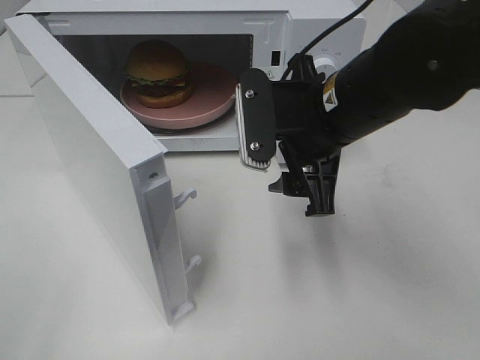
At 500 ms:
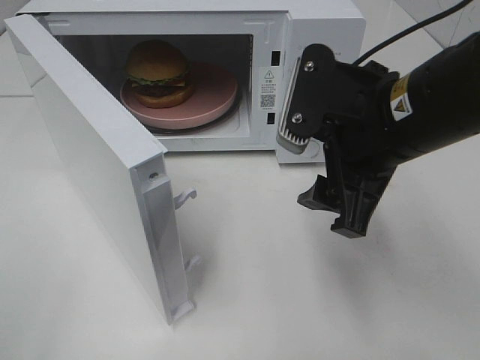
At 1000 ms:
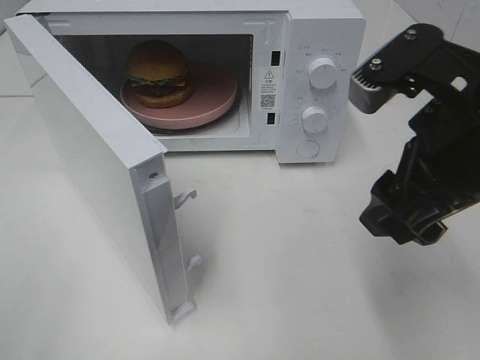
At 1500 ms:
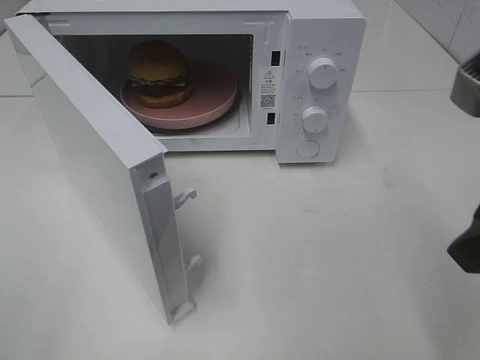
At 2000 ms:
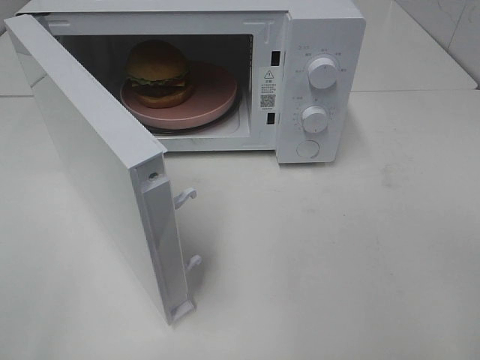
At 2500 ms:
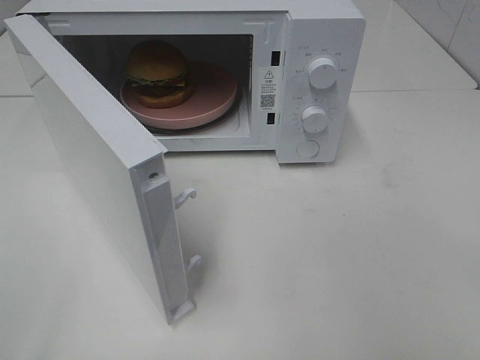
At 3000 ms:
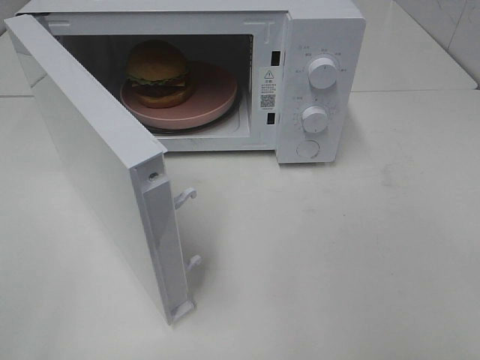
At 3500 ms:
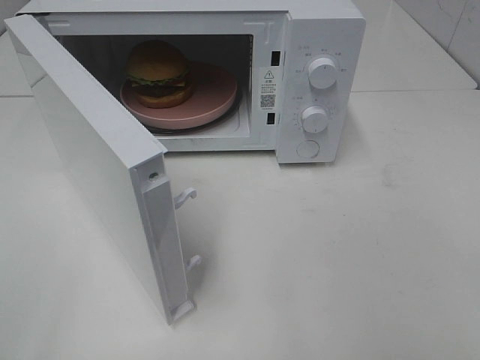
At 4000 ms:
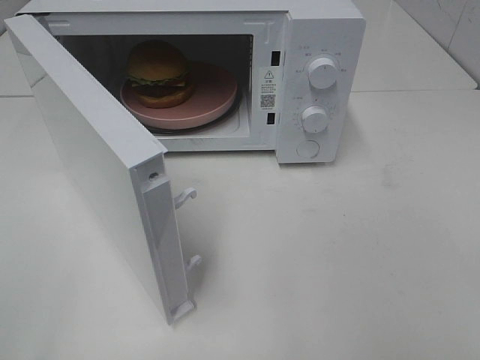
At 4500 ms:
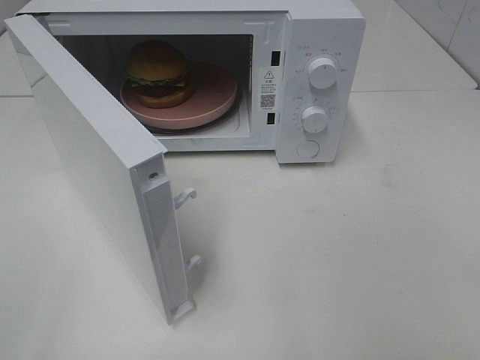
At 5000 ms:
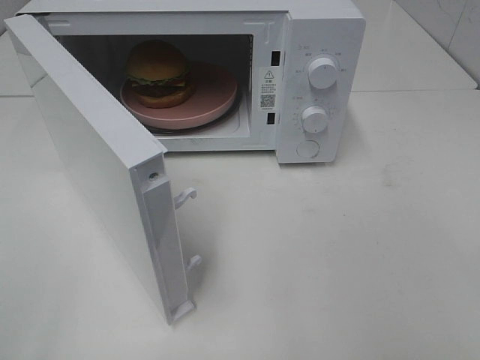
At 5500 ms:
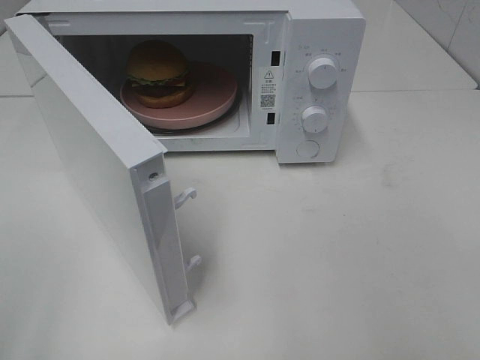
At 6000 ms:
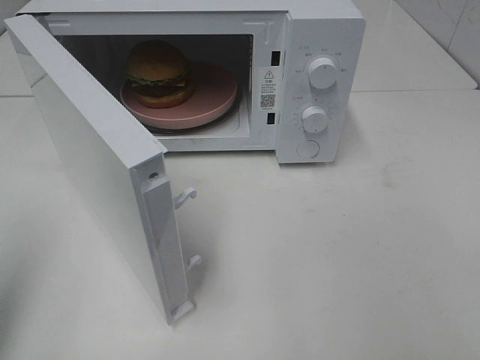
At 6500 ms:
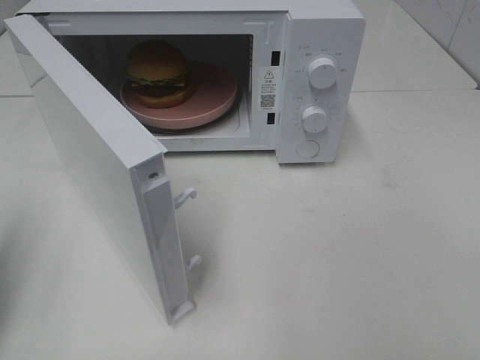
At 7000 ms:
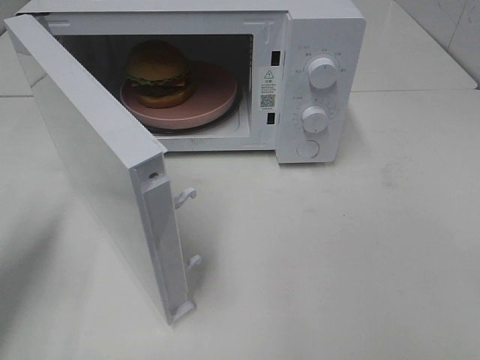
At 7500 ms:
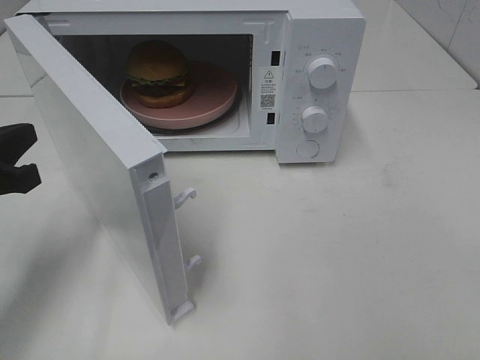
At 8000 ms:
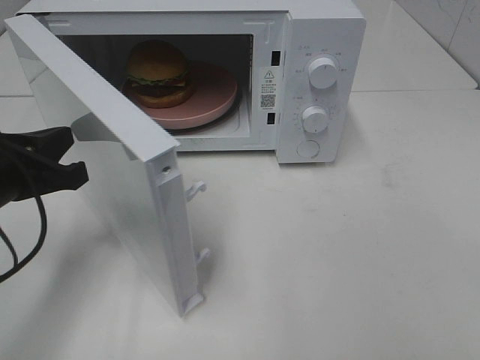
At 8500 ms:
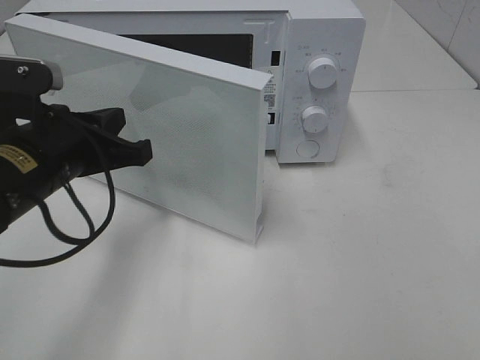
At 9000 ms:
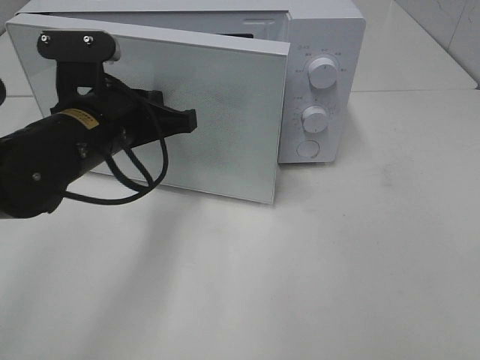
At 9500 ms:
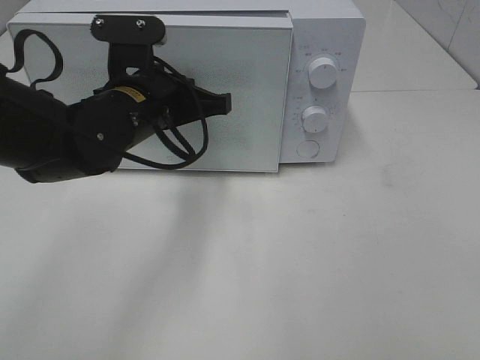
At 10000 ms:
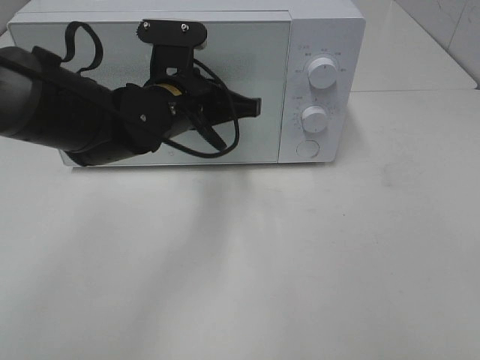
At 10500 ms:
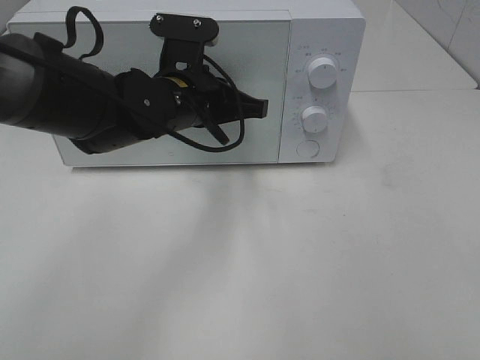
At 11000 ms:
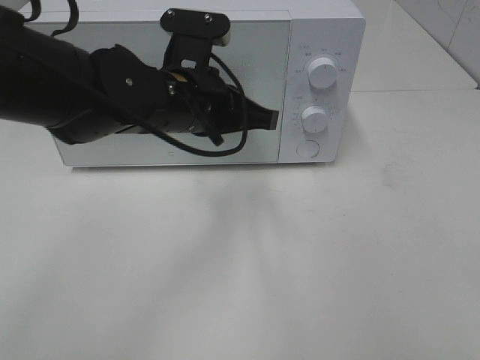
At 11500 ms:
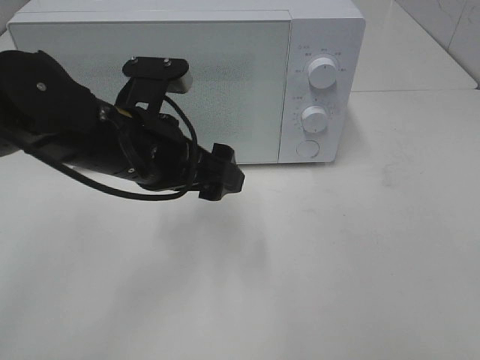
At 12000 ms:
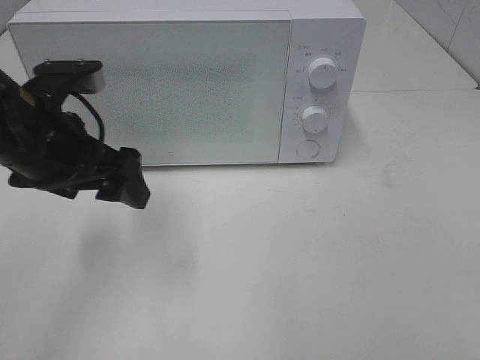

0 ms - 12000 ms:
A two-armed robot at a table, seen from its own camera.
Task of the whole recording: Heat the burger.
Step, 0 ms - 10500 ms: Left hand: close the microwave door.
0 ms - 2000 ms: The right gripper moves backward and to the right, roughly 25 cm.
4000 ms - 6000 ms: The left gripper shifts roughly 10 cm forward, and closes up.
6000 ms - 8000 ms: The left gripper shifts about 20 cm downward, forward and to the right.
8000 ms - 10000 ms: The left gripper moves to the right and forward, approximately 20 cm.
10000 ms - 12000 ms: The left gripper goes roughly 15 cm to the left and backward, and opens.

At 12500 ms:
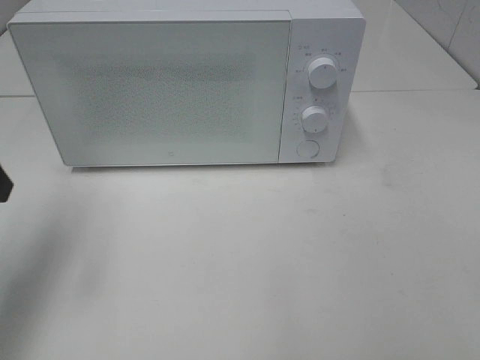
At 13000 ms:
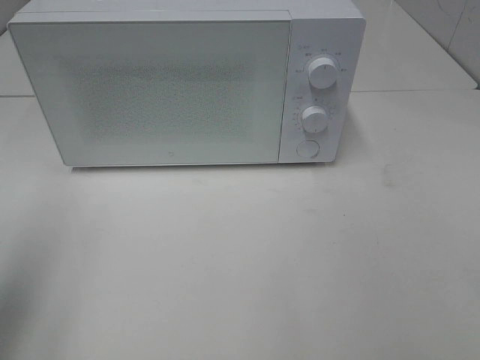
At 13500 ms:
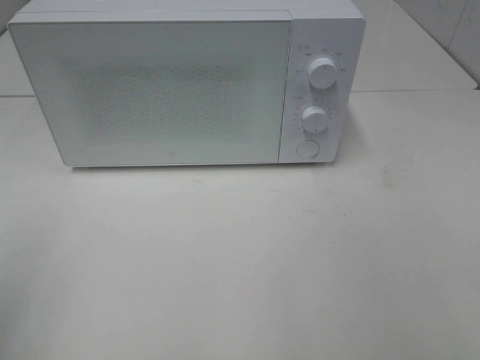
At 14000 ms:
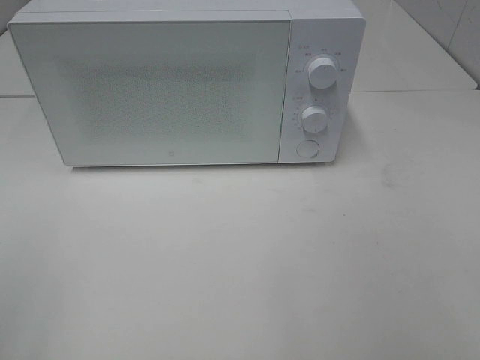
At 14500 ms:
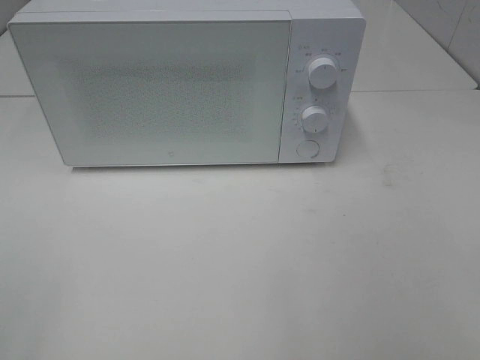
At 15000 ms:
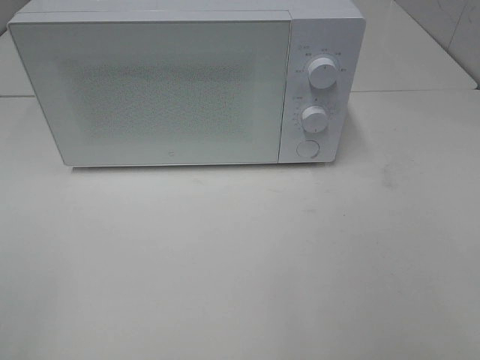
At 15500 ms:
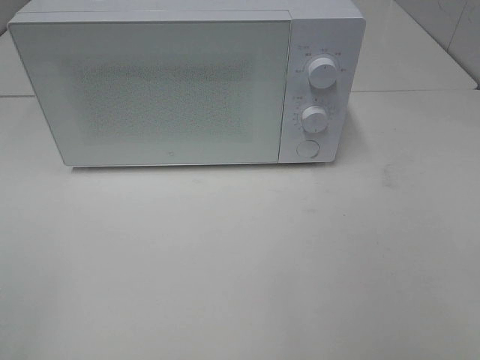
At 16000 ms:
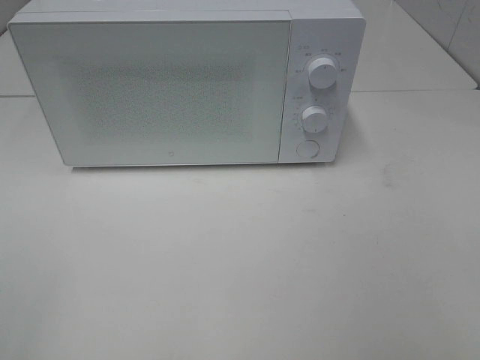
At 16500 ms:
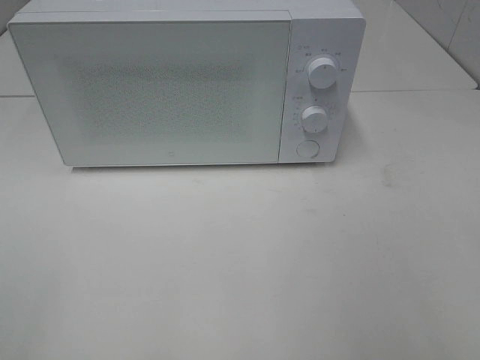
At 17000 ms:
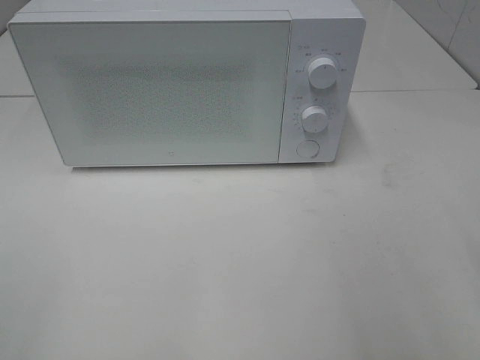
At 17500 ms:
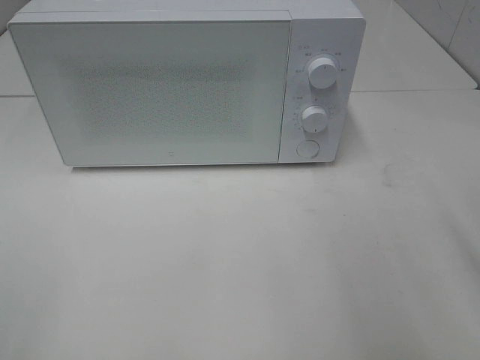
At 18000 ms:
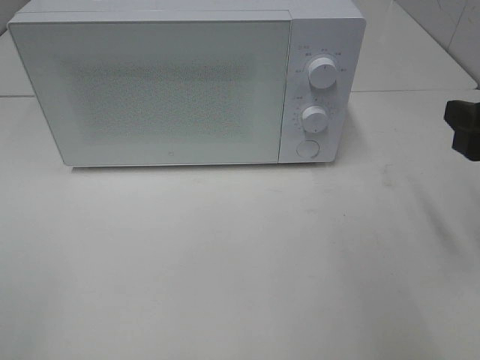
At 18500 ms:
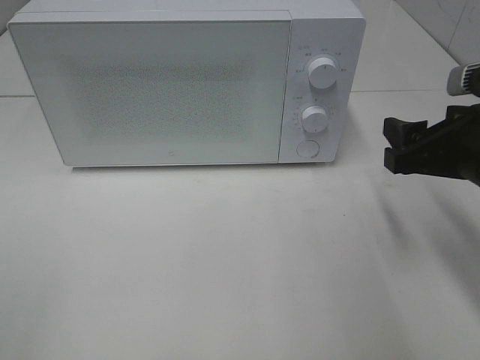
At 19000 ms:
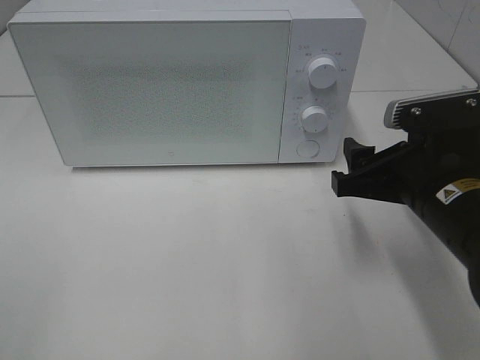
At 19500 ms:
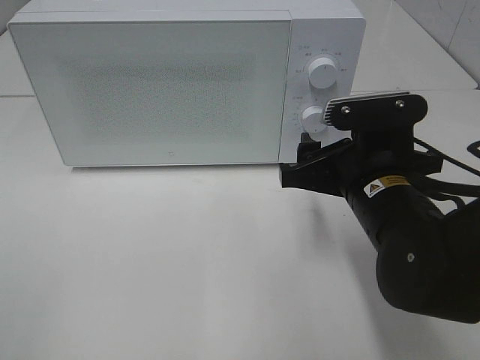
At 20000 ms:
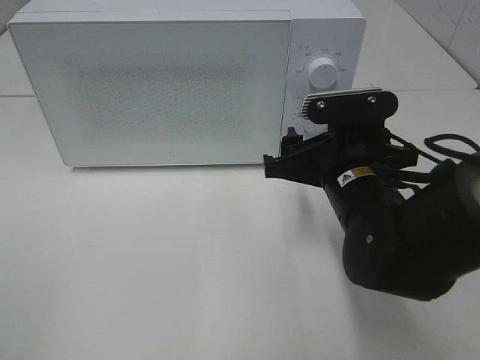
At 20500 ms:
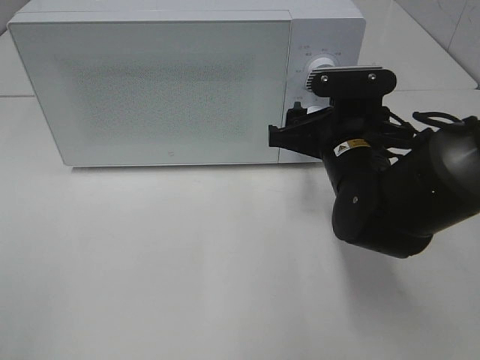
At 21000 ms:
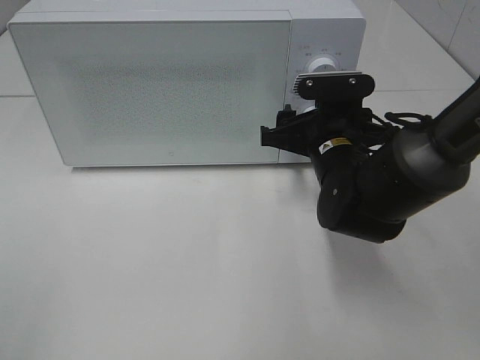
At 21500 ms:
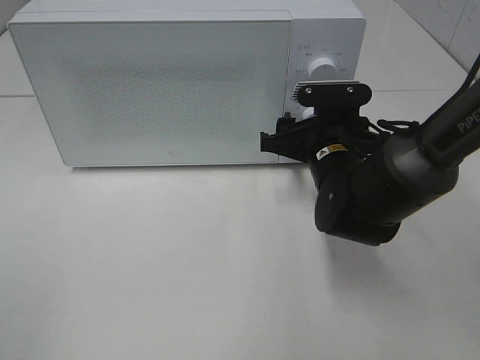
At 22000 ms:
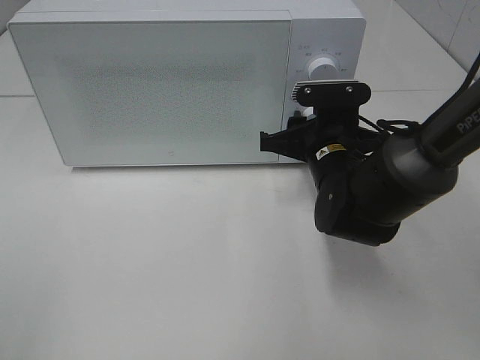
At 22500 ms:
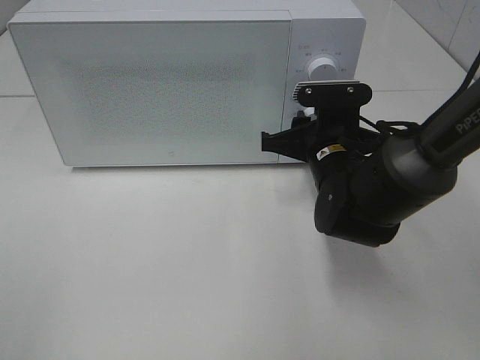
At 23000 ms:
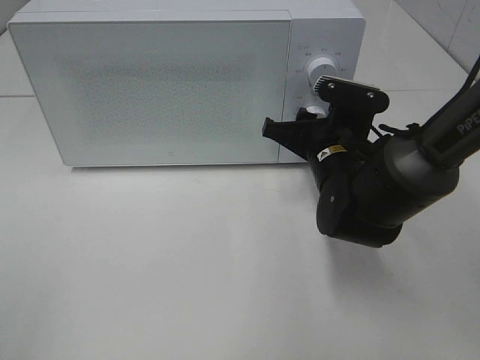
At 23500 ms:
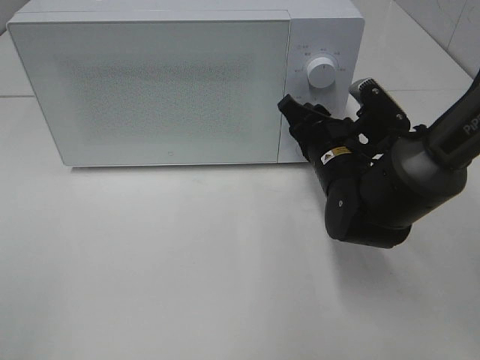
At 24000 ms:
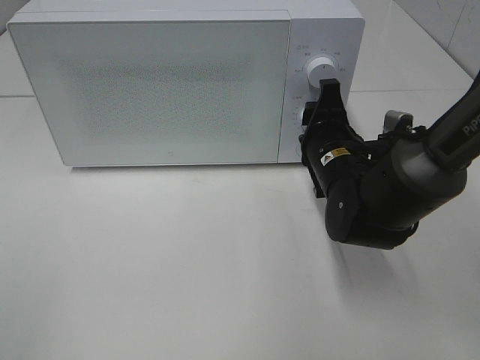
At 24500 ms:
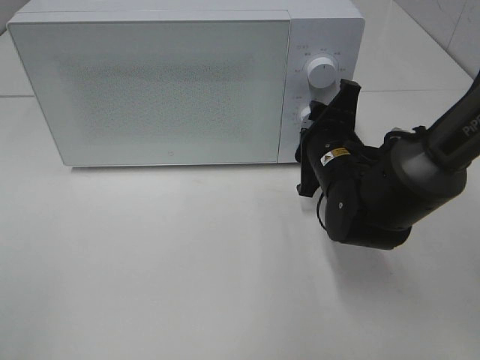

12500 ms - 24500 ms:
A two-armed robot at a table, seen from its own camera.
Task of the whole recording: Heat the burger.
12500 ms - 14500 ms: The left gripper shifts approximately 20 cm backward.
16500 ms - 18500 ms: The right gripper goes roughly 20 cm forward and downward.
18500 ms - 20500 ms: The right gripper is displaced to the left and forward by some 15 cm.
20500 ms - 22500 ms: The right gripper closes.

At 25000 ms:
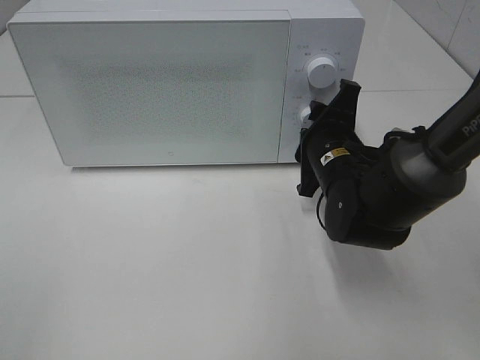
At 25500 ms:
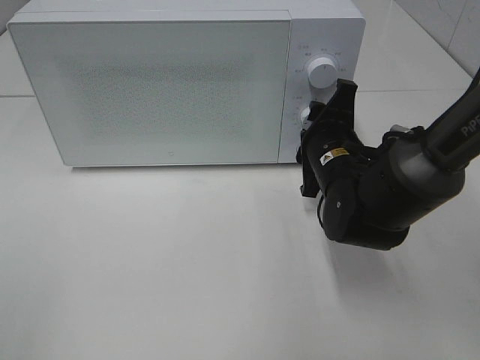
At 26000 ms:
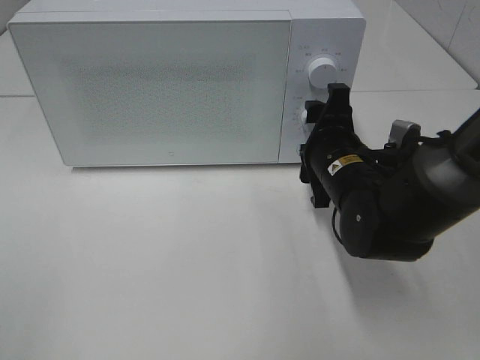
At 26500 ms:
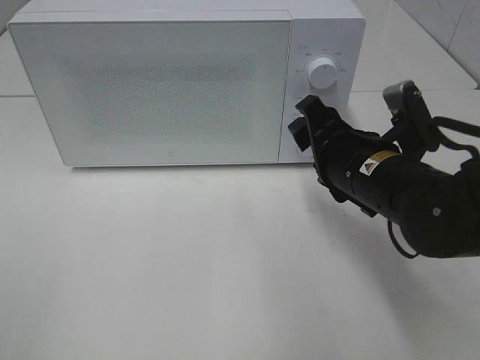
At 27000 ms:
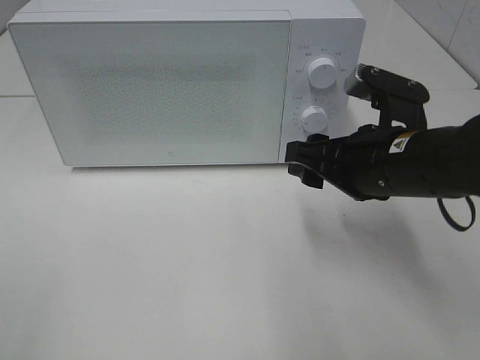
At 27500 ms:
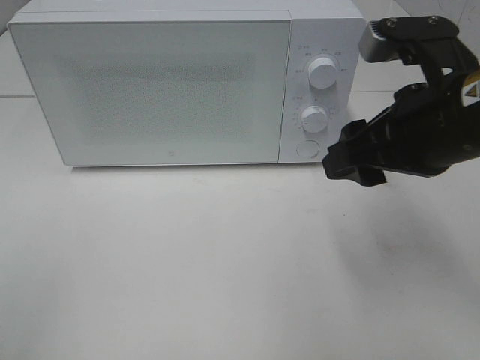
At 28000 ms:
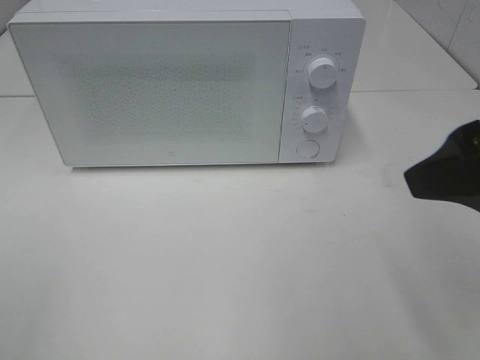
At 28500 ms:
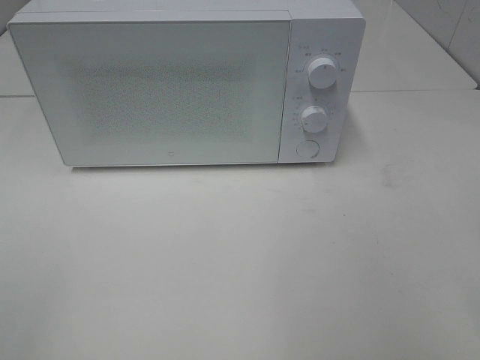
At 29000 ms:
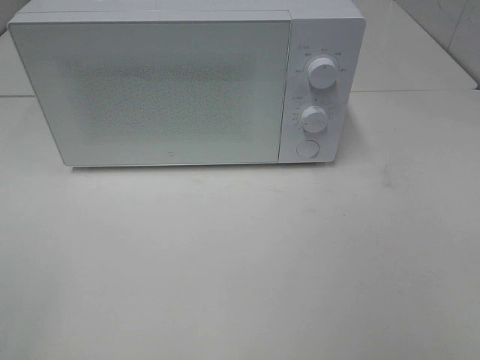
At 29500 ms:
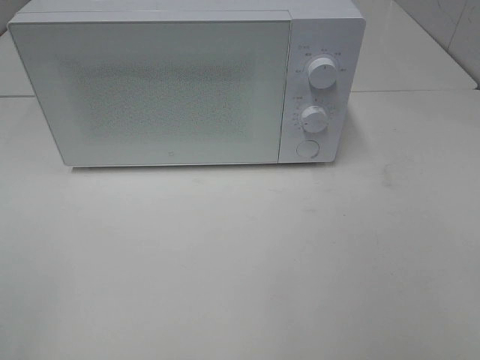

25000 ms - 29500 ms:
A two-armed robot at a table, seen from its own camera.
Task of the whole recording: Heat the burger.
25000 ms - 27000 ms: The right gripper travels backward and upward by approximately 10 cm.
27000 ms - 29500 ms: The right gripper heads backward, to the right and upward, covering some 30 cm.
